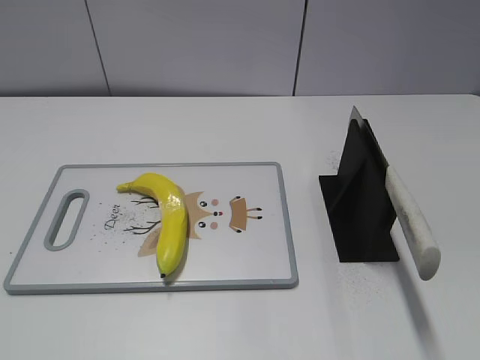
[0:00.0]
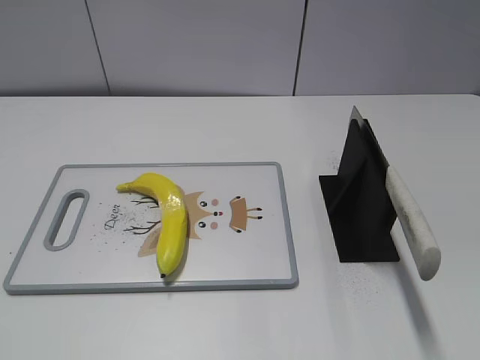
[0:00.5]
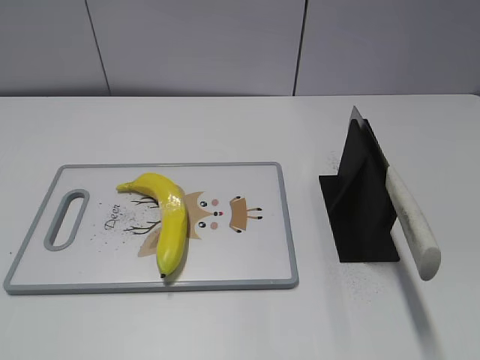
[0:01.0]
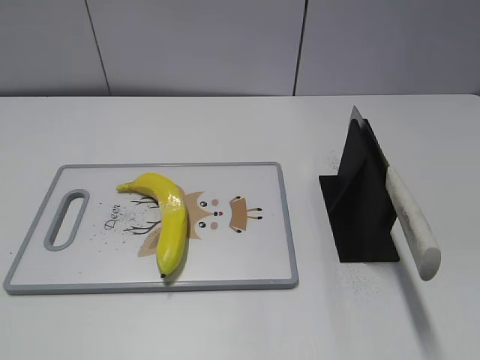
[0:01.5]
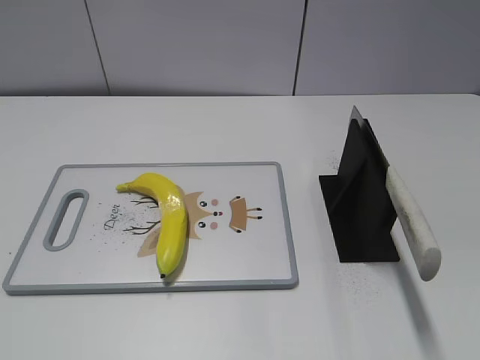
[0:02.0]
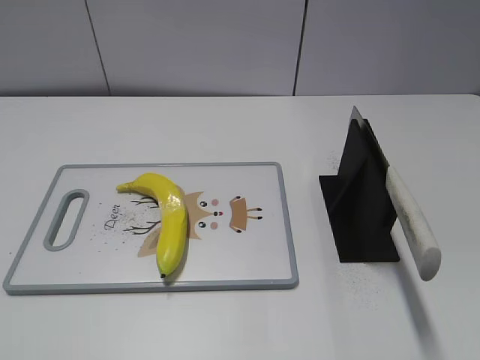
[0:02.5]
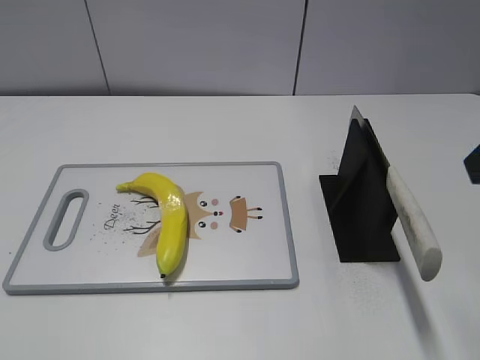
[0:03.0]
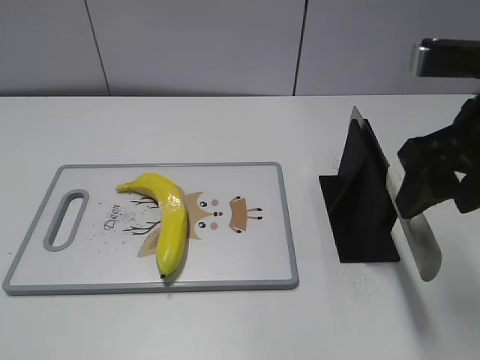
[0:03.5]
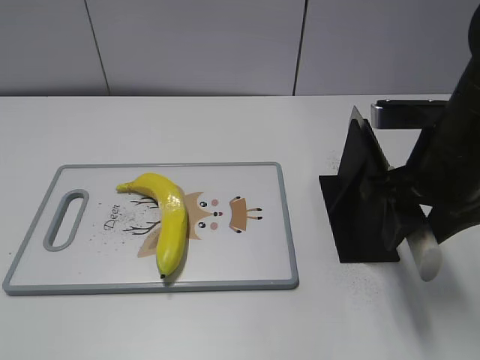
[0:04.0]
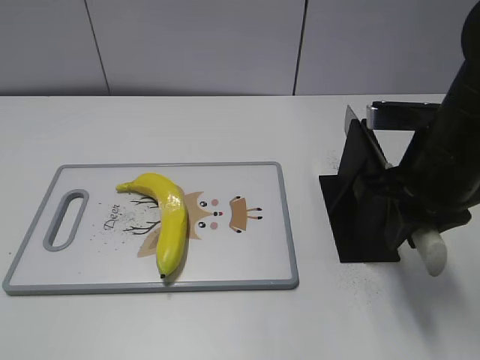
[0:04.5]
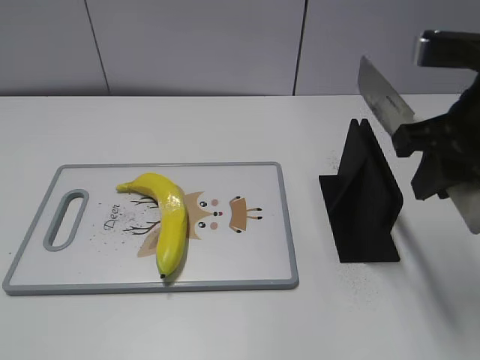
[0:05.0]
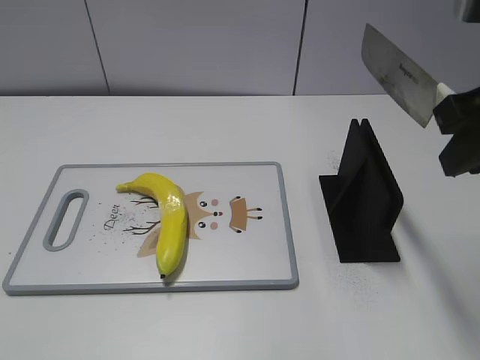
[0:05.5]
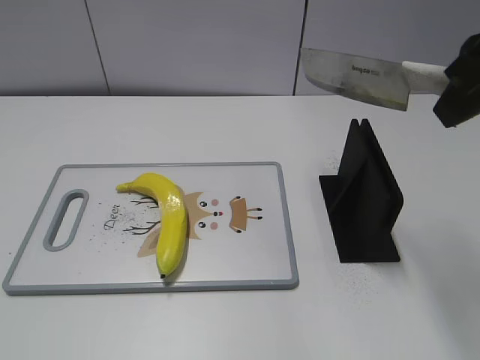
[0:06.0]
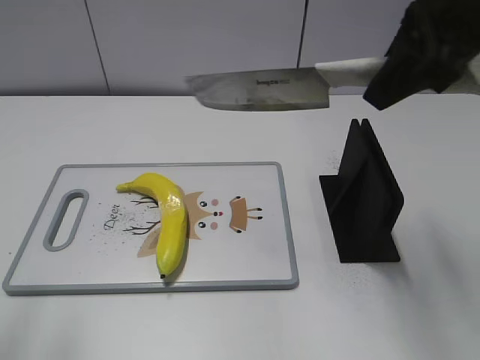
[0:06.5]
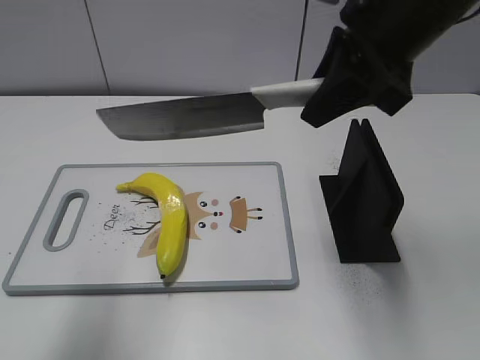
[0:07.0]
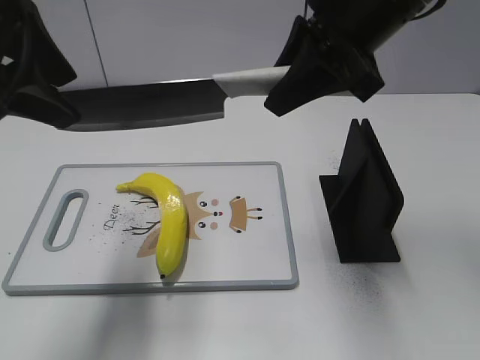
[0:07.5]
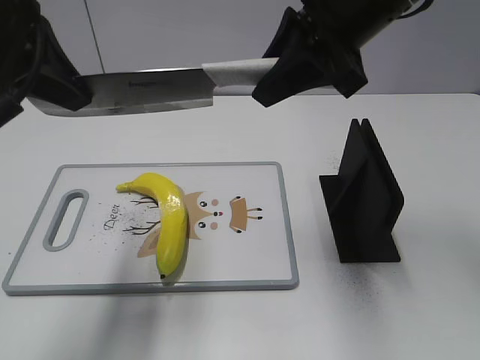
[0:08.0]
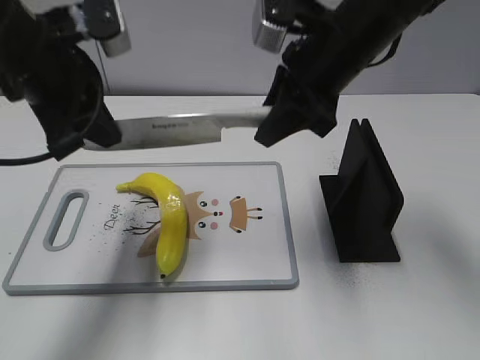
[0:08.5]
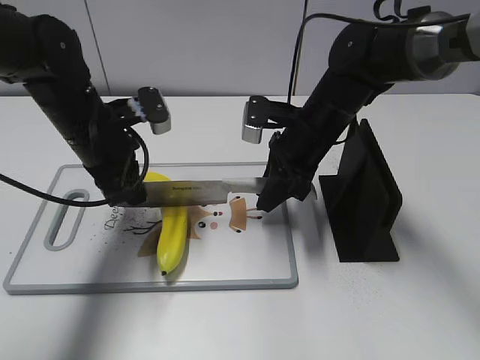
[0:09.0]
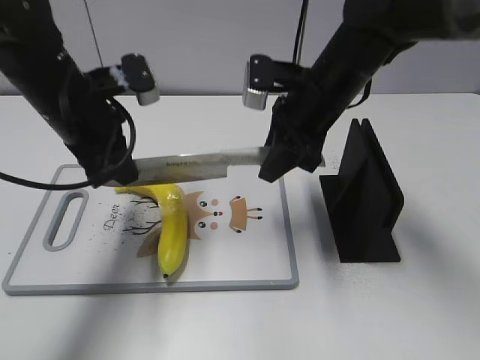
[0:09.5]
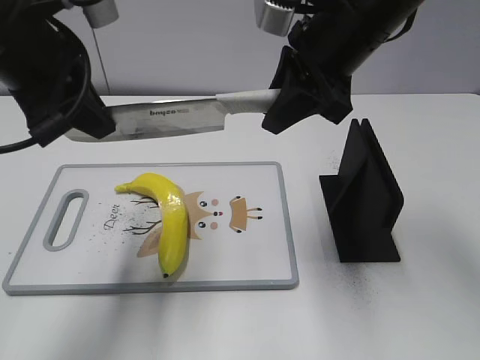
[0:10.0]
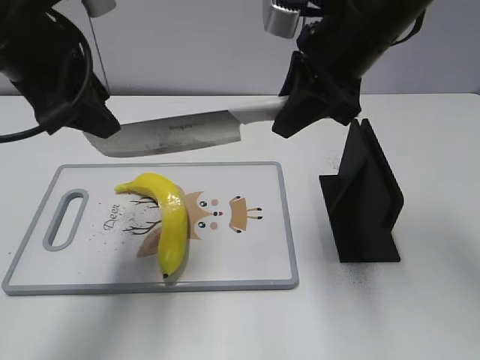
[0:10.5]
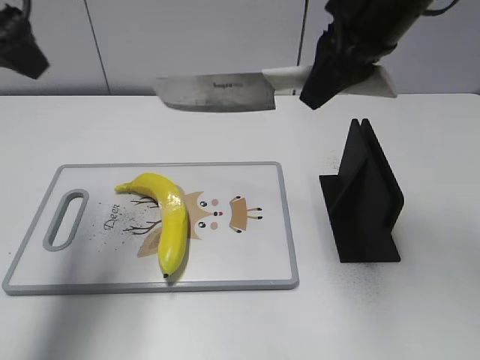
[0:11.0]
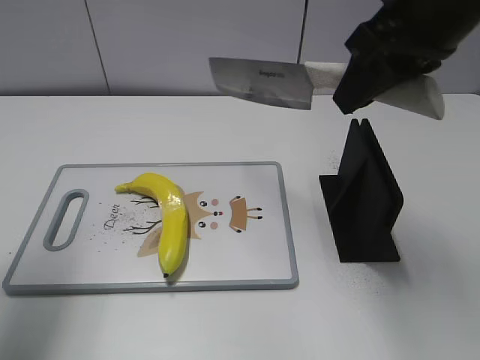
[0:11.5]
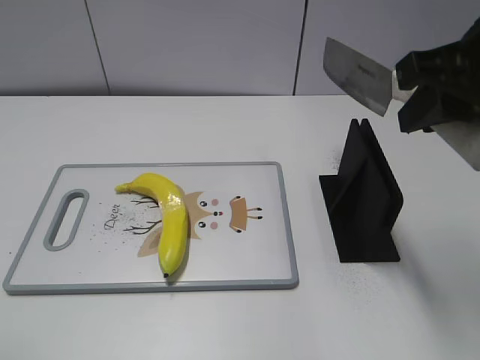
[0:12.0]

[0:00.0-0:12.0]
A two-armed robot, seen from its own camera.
Task of the whole recording: cut plastic banana.
Step, 0:00.0 to 0:05.0: Grab the knife handle with your right hand.
Step, 0:06.0 to 0:10.0: Lift the knife with your right hand.
Step, 0:10.5 to 0:11.5: Cut the banana with your right hand.
0:02.0 to 0:04.0: The right gripper is displaced forward, to the left and downward by roughly 25 cm, and closes up.
0:04.0 to 0:06.0: The right gripper moves upward, roughly 15 cm, and closes up.
0:06.0 to 0:08.0: The left gripper heads forward and to the right, covering roughly 25 cm, and closes up. The right gripper moves to the left and forward, roughly 10 cm.
0:08.0 to 0:10.0: The left gripper reaches roughly 20 cm downward, then returns. Meanwhile the right gripper moves roughly 20 cm downward and comes back.
0:10.0 to 0:12.0: The right gripper is displaced backward and to the right by some 15 cm. The left gripper is displaced backward and to the left by about 25 cm, and opens its fingers.

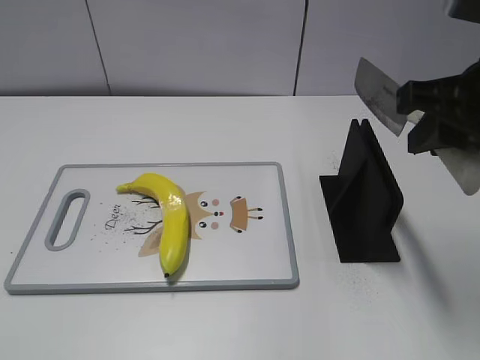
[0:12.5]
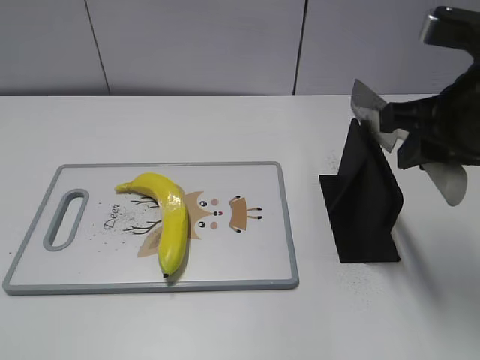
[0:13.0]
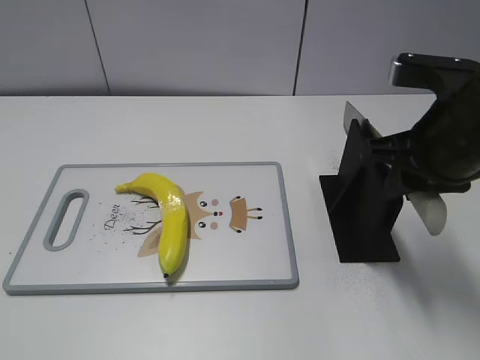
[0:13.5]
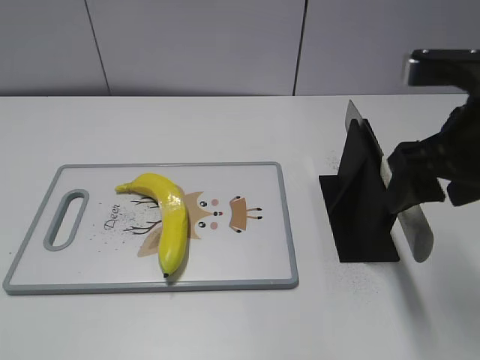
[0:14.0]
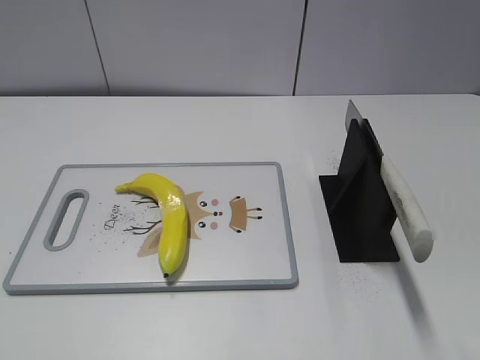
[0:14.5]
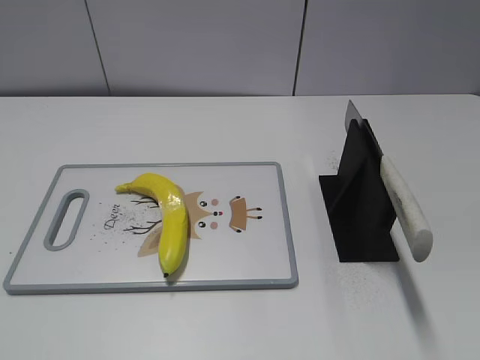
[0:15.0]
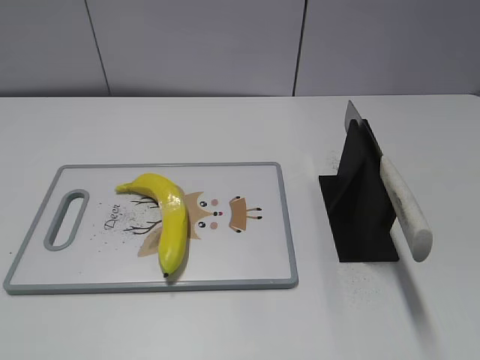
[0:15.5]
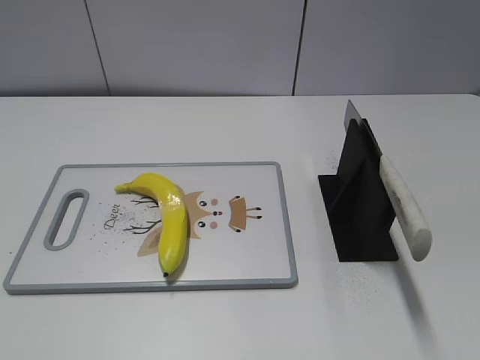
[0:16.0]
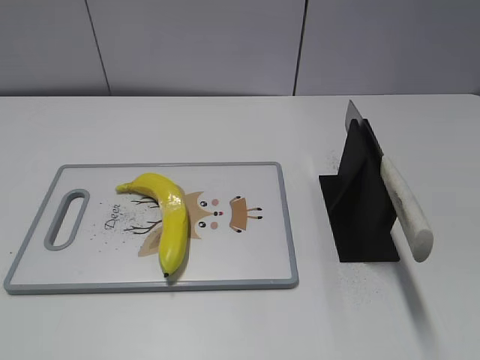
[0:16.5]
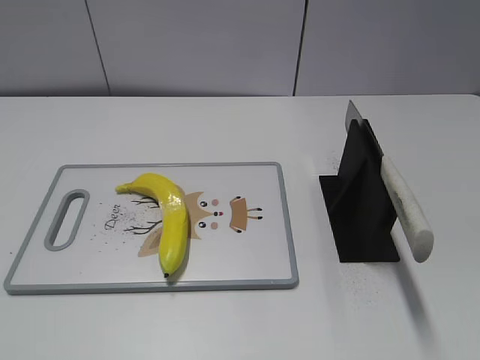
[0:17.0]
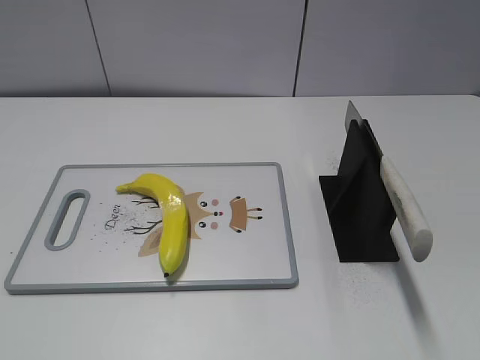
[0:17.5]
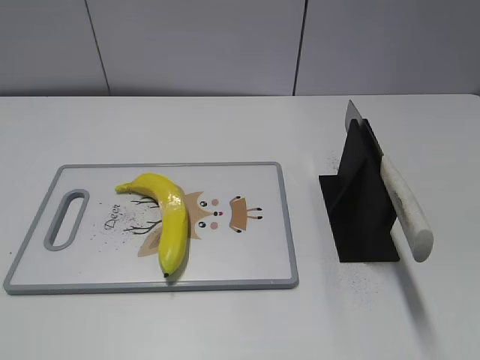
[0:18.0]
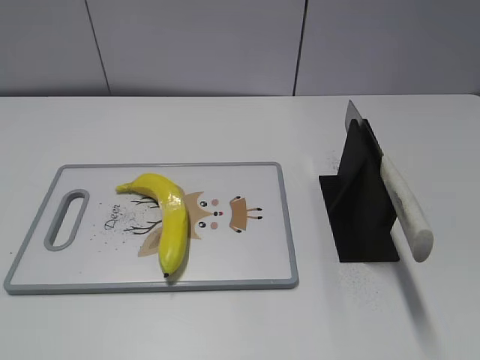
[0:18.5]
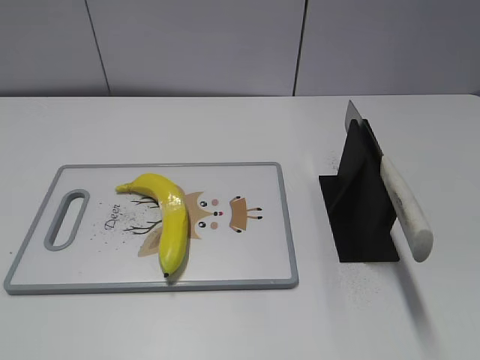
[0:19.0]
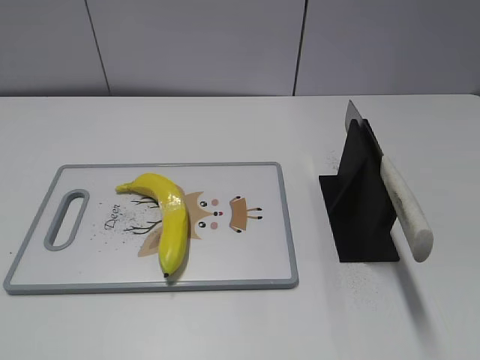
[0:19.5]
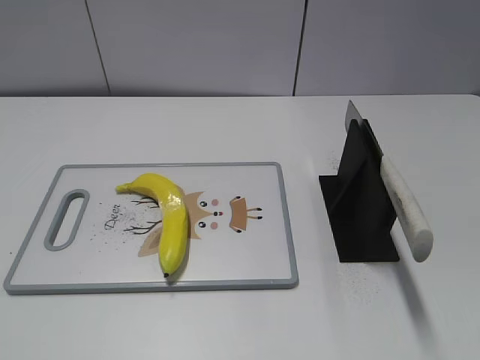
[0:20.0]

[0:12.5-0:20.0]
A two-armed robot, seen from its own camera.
Task of the whole recording: cut plastic banana.
Step, 0:13.5 to 0:17.0: Place the knife on the storage rack with your right hand.
0:12.5 to 0:14.5: The right gripper travels backward by about 10 cm, and opens up.
0:18.0 to 0:20.0: The two grippers keep their place.

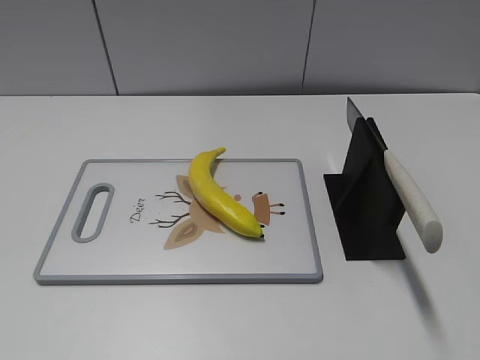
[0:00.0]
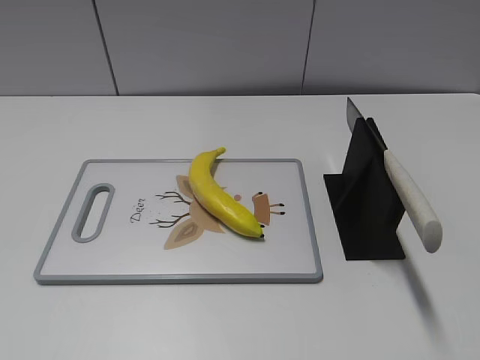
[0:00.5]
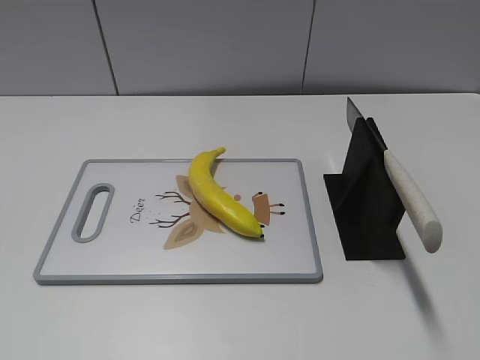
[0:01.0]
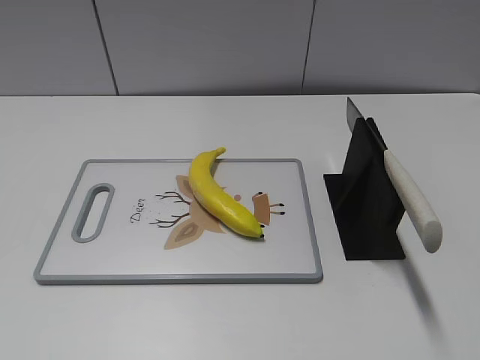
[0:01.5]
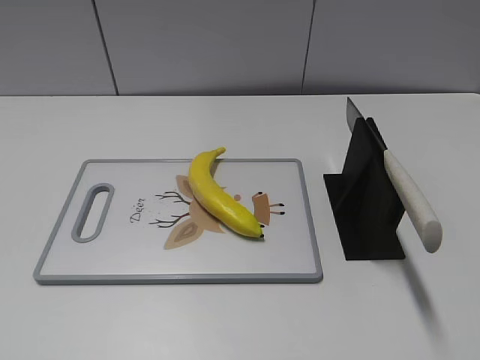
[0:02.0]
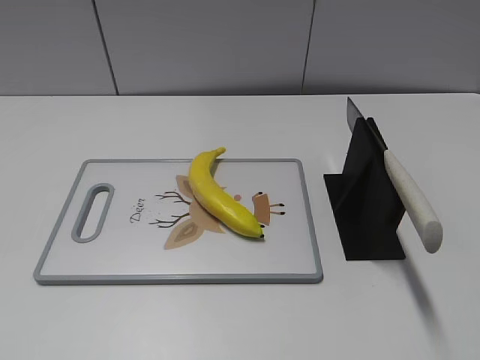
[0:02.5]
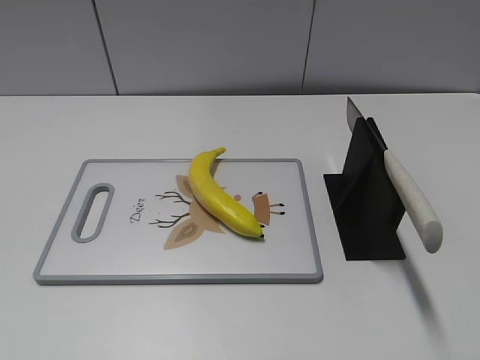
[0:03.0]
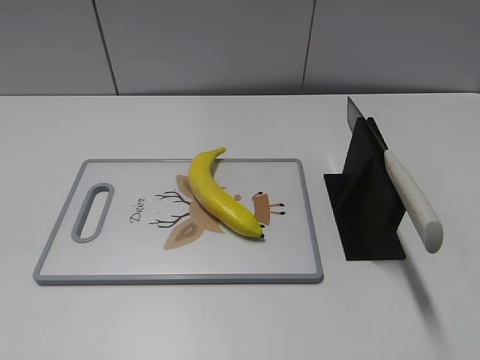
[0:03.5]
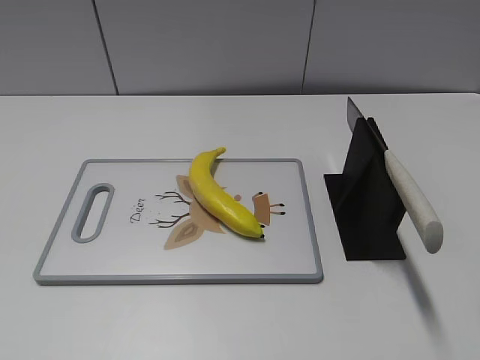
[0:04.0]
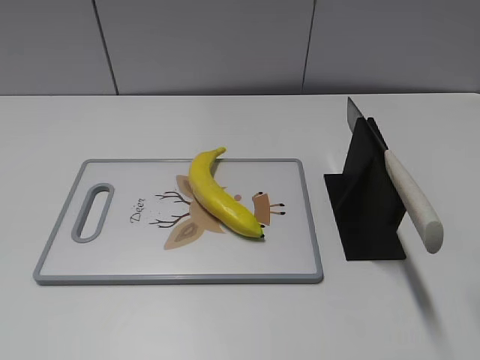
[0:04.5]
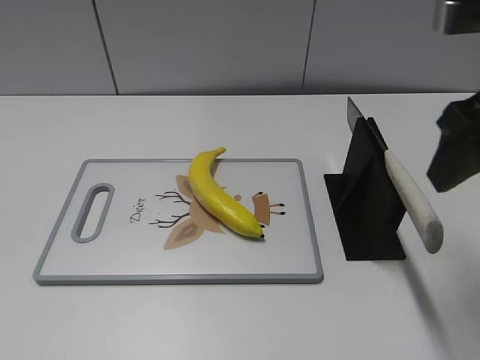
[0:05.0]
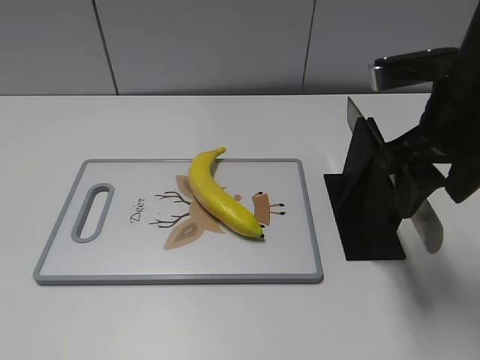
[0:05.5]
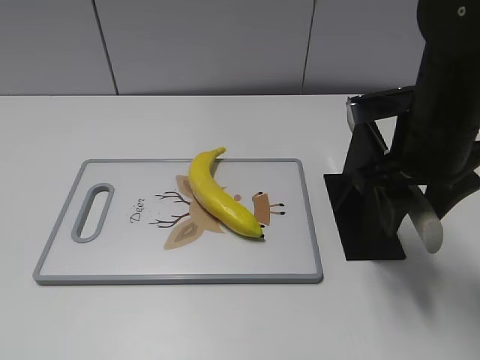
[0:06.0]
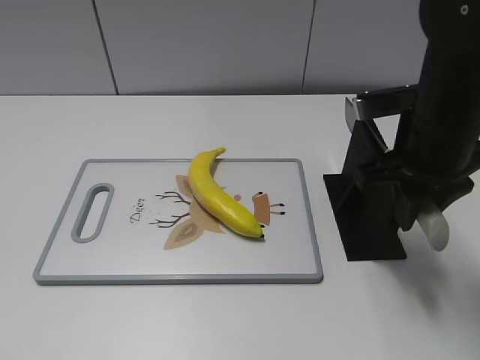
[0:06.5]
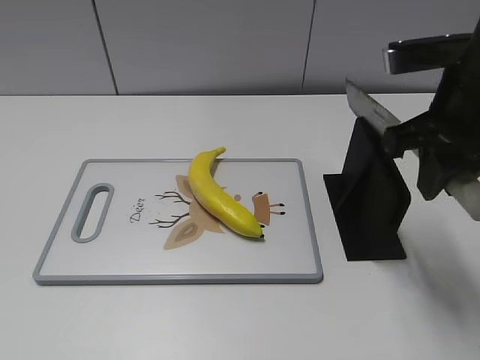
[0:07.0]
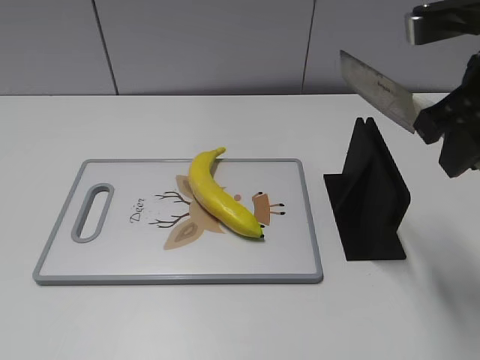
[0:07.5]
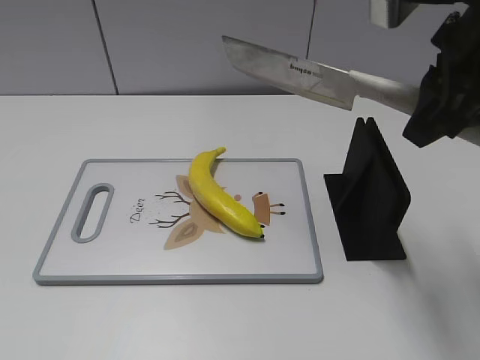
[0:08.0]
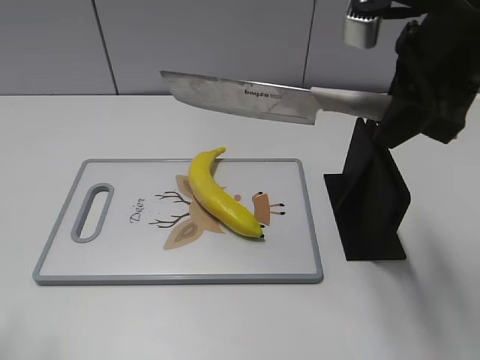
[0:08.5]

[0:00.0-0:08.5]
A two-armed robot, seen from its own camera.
Task of the whole recording: cut plastic banana.
Step, 0:00.0 to 0:07.5: Grab the knife handle with your right hand.
0:04.0 to 0:06.5: The right gripper heads downward, forward and to the left, covering about 20 cm, and closes up.
0:06.5 to 0:08.5: The right gripper travels upward by roughly 10 cm. The left gripper goes some 10 cm forward.
